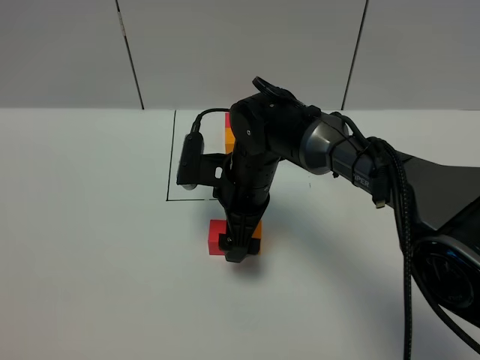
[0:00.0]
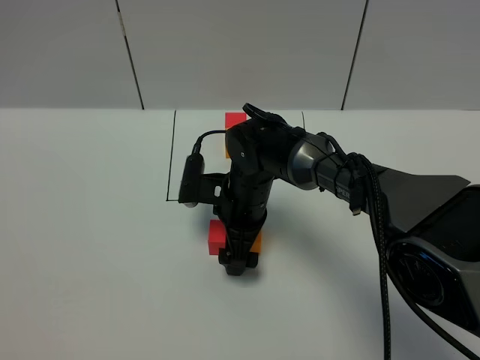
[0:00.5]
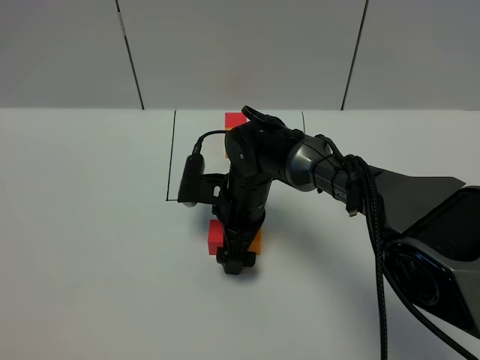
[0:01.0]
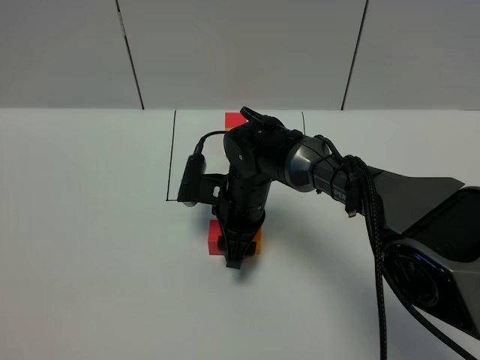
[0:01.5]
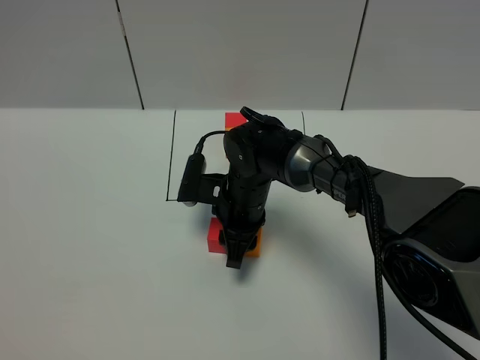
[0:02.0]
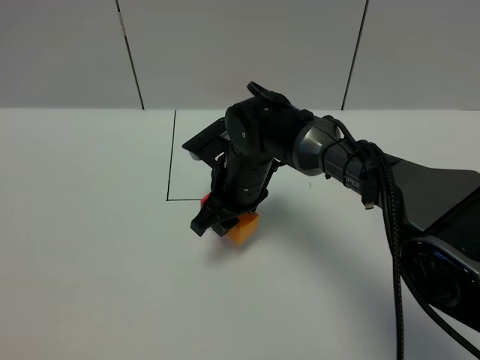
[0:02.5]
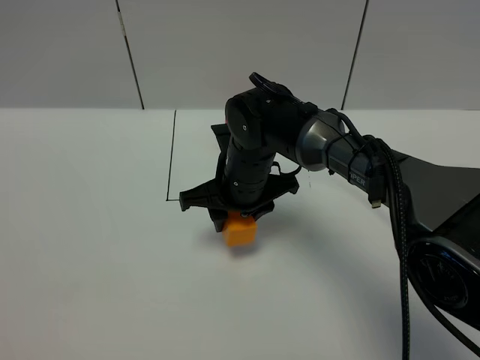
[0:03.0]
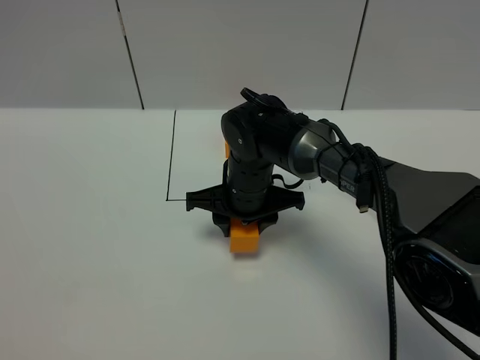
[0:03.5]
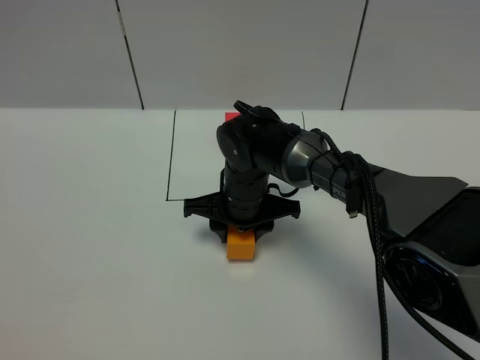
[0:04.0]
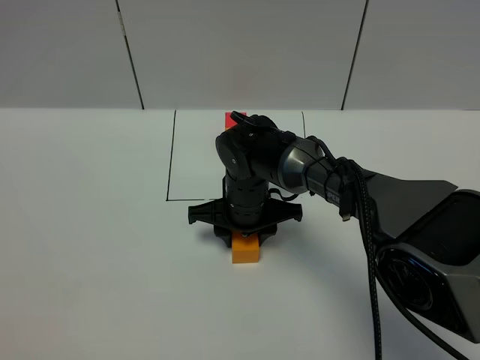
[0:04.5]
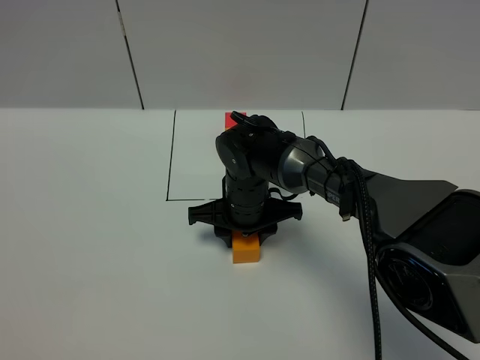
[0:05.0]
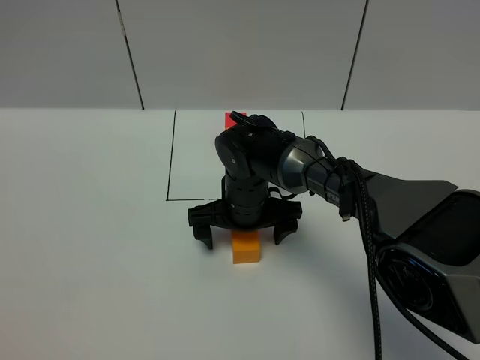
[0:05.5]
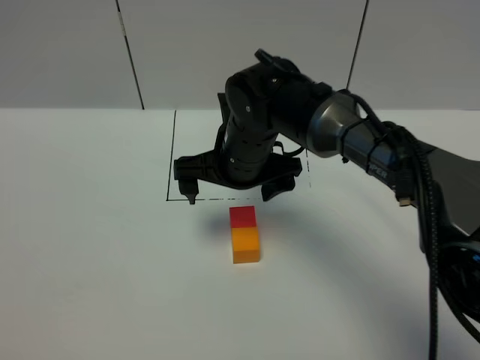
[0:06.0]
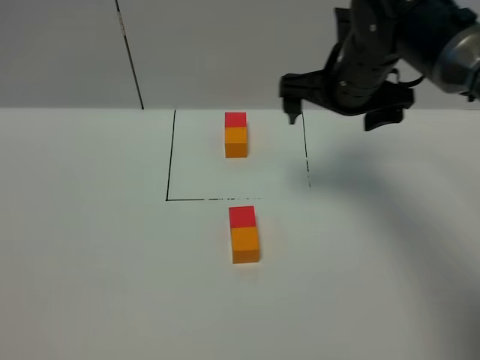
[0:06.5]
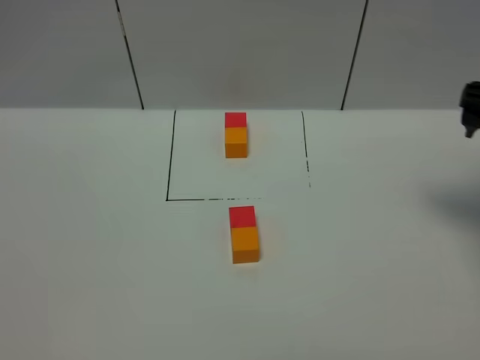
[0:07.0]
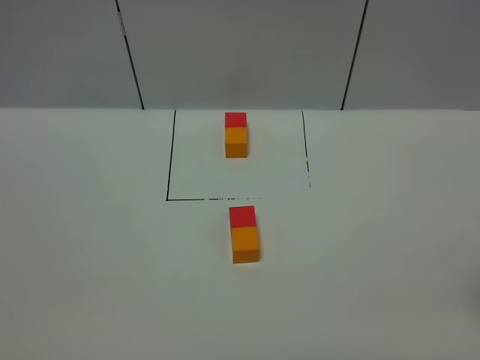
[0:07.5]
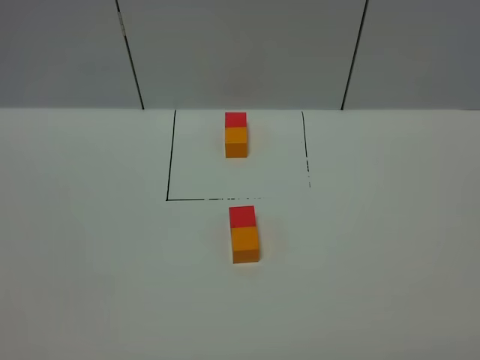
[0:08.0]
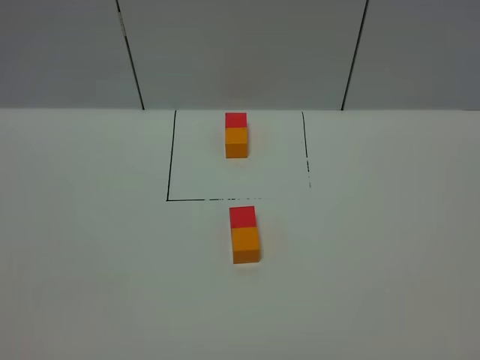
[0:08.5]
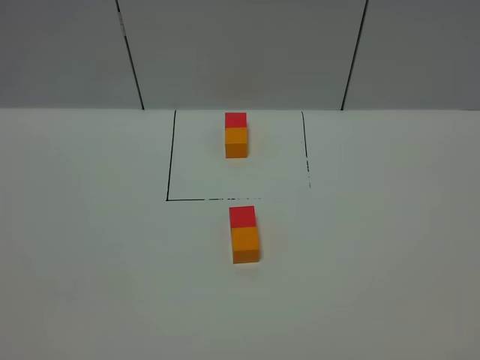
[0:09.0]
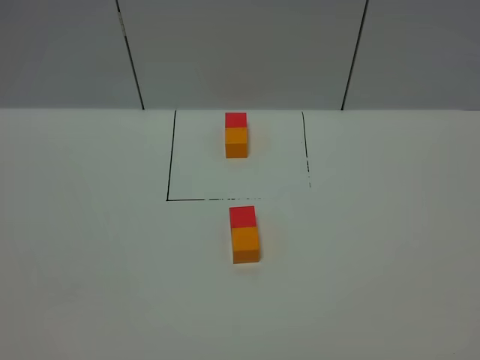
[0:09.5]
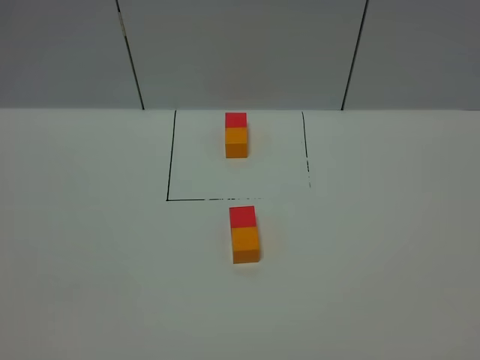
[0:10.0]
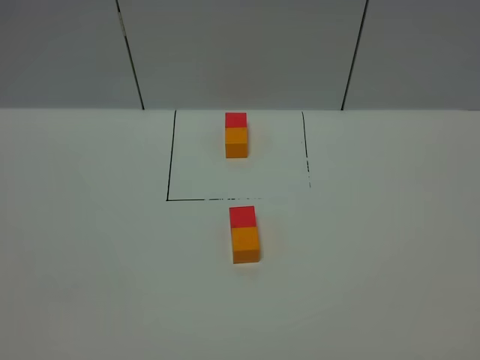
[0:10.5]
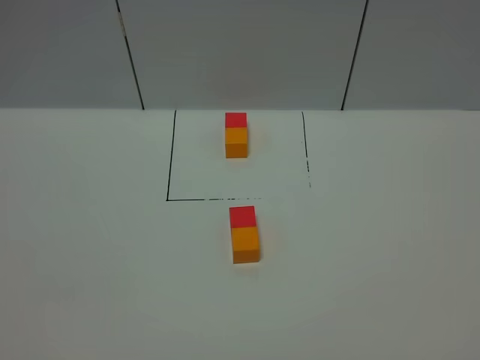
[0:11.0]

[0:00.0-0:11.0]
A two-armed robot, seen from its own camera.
Task of the whole recording: According to the building block template in front, assemble the scattered blocks together.
Step, 0:00.0 to 0:05.5: Adjust the pose of the building blocks.
0:00.0 to 0:02.0: The right gripper closes up.
0:03.5 to 0:05.5: The right gripper opens its fingers.
0:05.5 to 0:07.5: The right gripper travels to the right, backward and upward by roughly 40 cm.
0:09.0 to 0:11.0: Both grippers stay about where they are.
